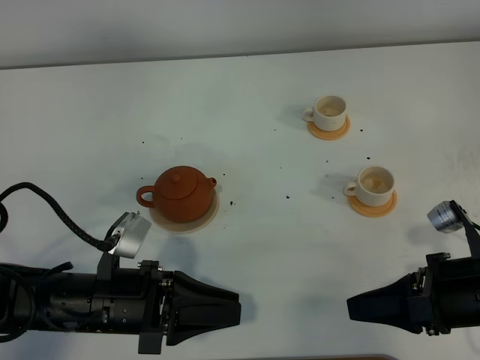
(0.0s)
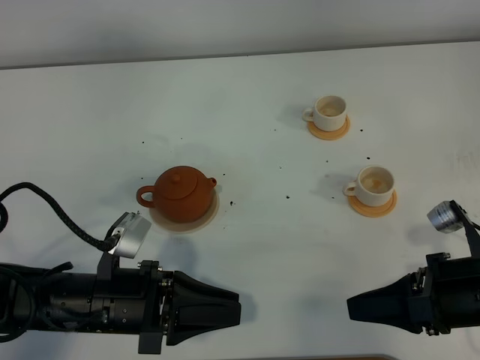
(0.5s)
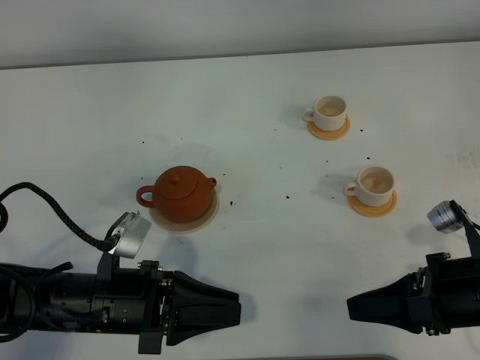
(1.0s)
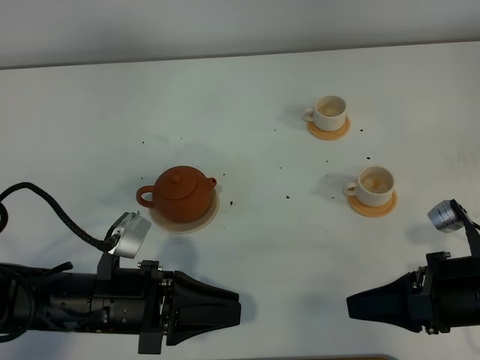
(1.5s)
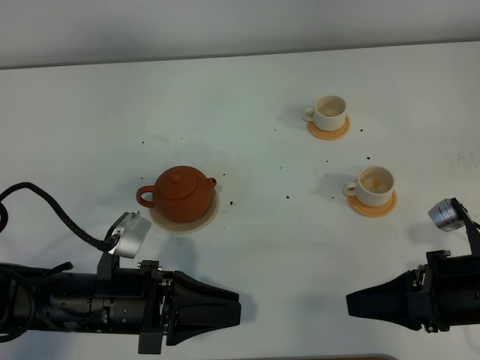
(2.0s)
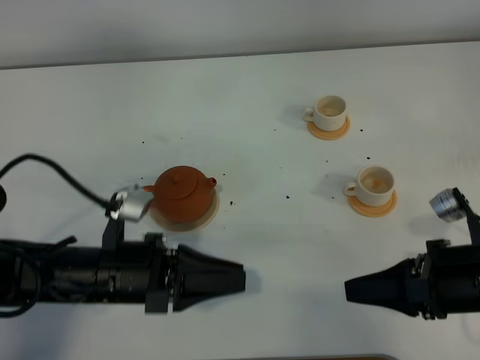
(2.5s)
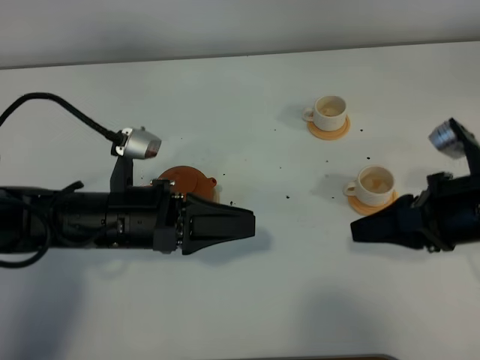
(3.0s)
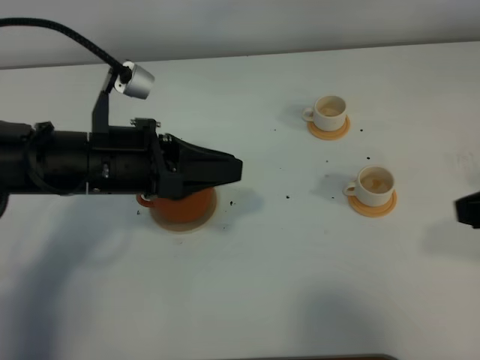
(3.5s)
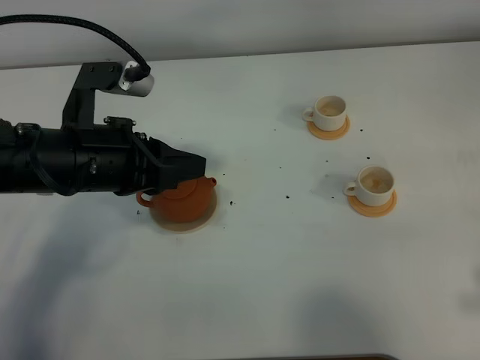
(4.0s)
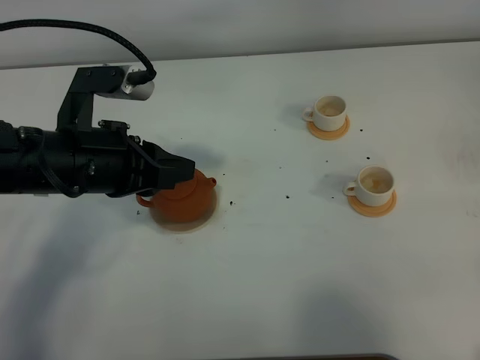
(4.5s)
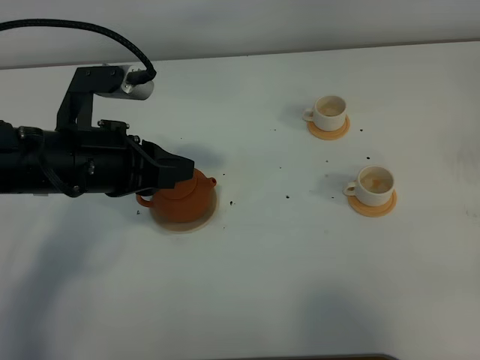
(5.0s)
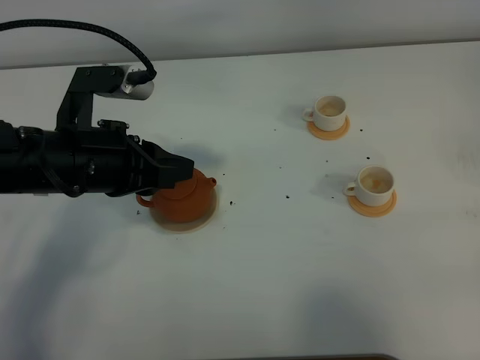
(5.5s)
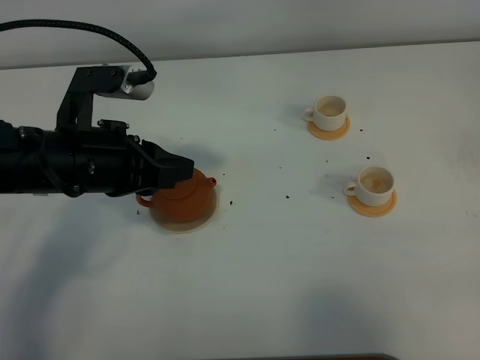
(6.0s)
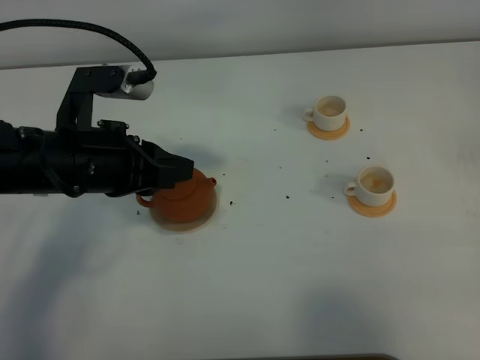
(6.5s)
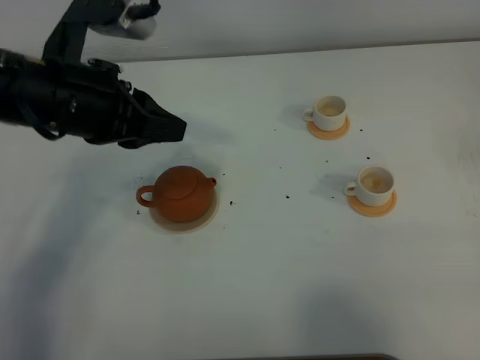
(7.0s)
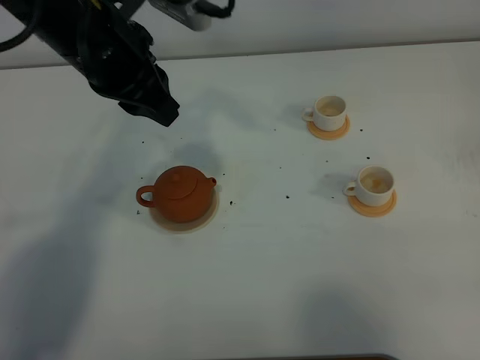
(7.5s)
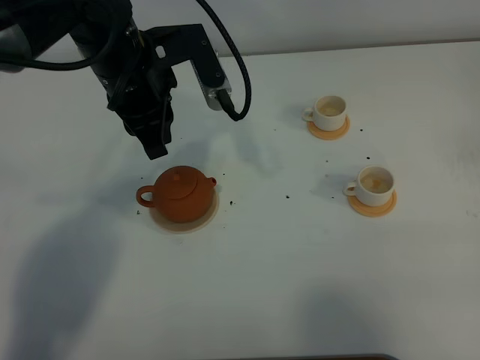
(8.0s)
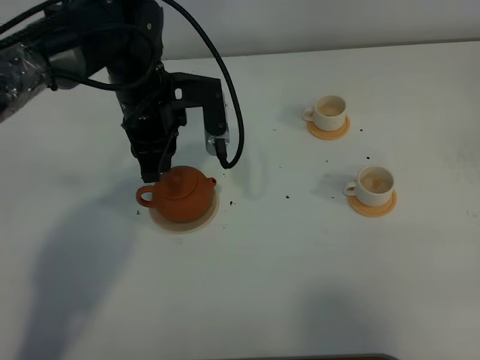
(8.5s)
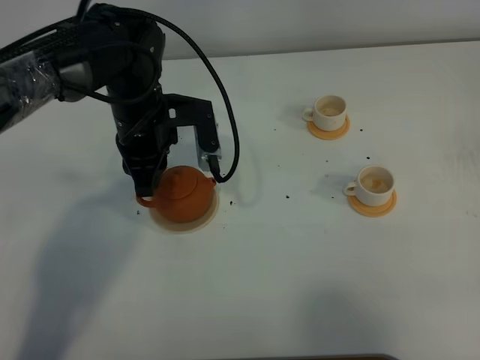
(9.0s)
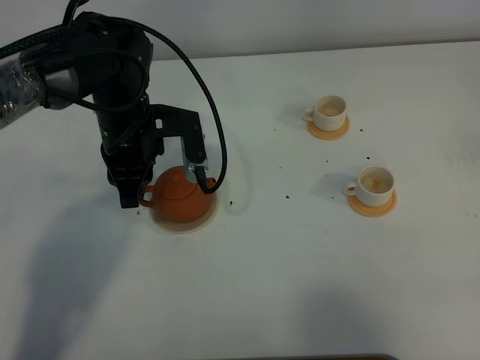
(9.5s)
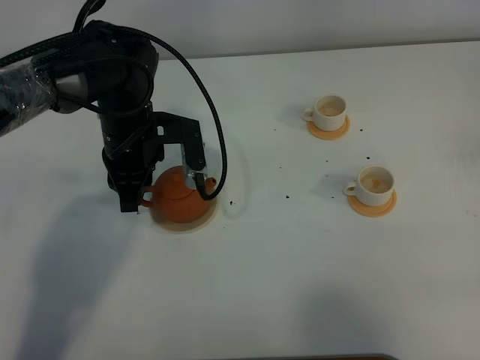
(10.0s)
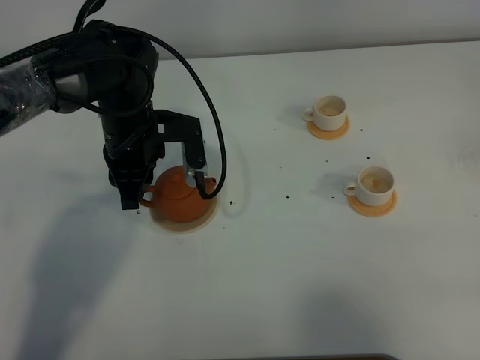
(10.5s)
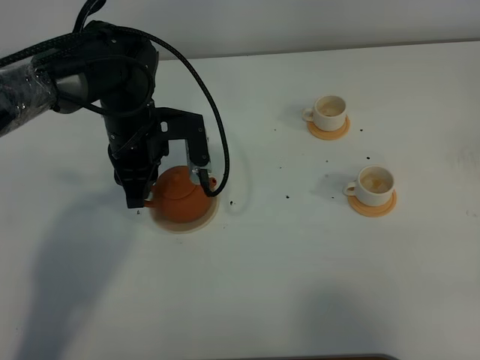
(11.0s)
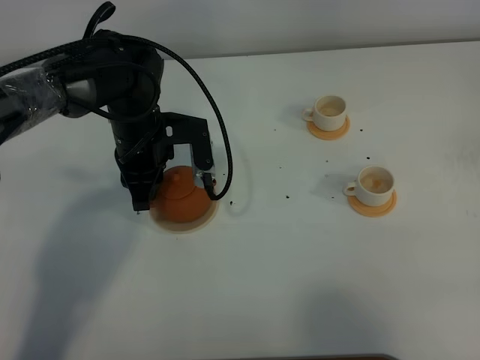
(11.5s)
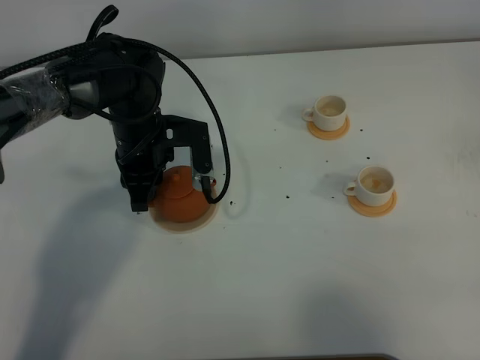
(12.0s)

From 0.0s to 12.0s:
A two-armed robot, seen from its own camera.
Task of the whole recording: grasp the brown teapot and pour the tea into the two white teacups one by one, put the brown teapot back in its original place.
From 0.0s to 2.0s: The two grippers keep their place.
From 2.0s to 4.0s: The left gripper goes approximately 15 cm upward and forward. Meanwhile the right gripper shifts approximately 20 cm upward, to the right and backward.
From 6.0s to 8.0s: The left gripper is displaced forward and to the right by some 10 cm.
From 8.0s to 10.0s: The left gripper goes about 10 cm downward.
From 10.0s to 12.0s: The grippers make only small movements.

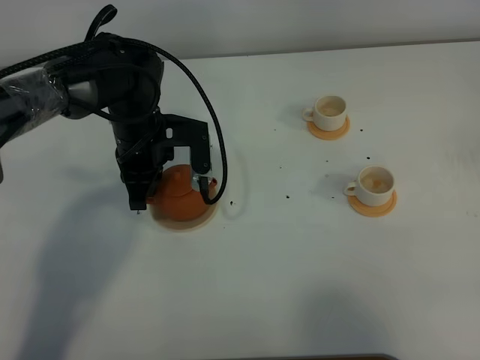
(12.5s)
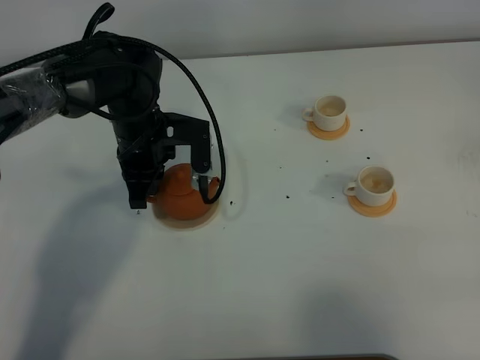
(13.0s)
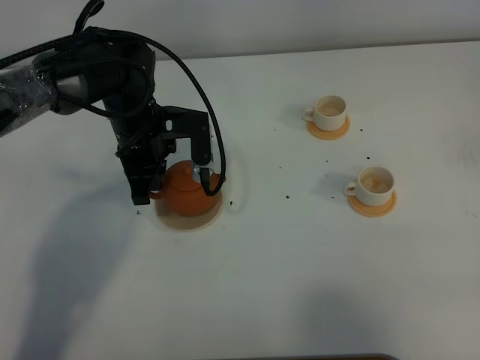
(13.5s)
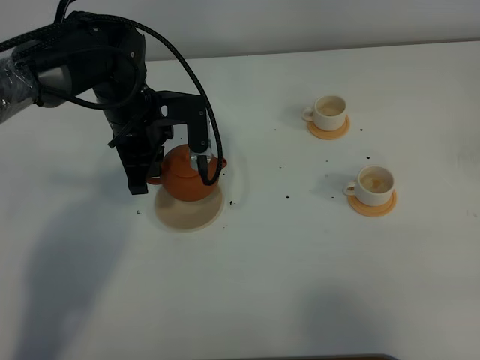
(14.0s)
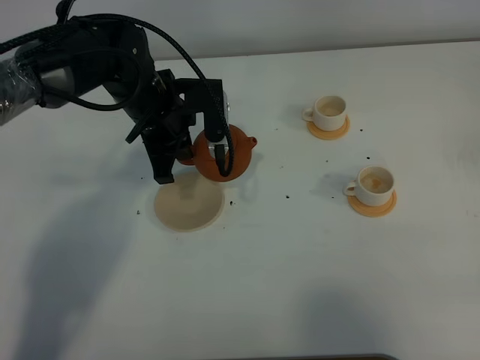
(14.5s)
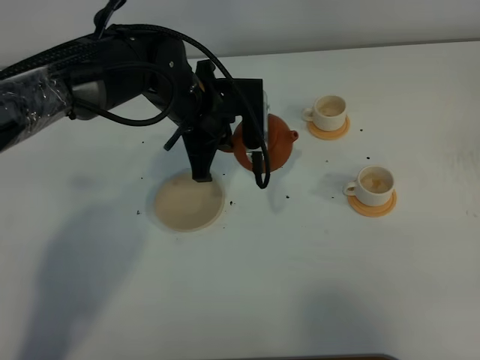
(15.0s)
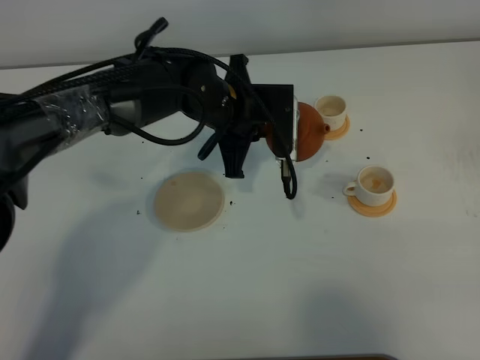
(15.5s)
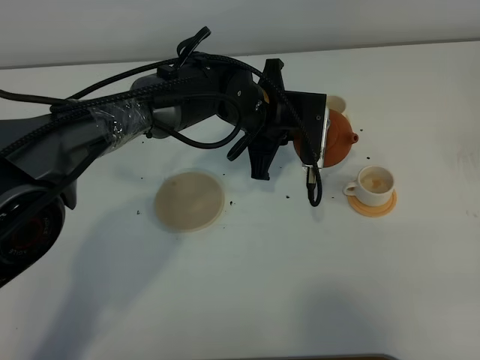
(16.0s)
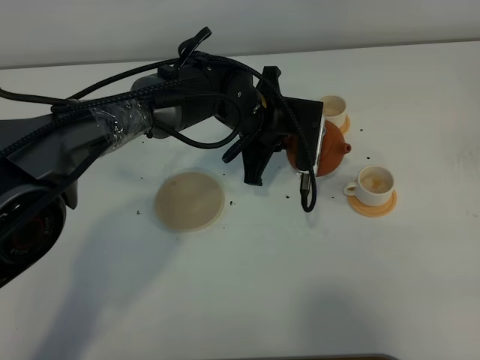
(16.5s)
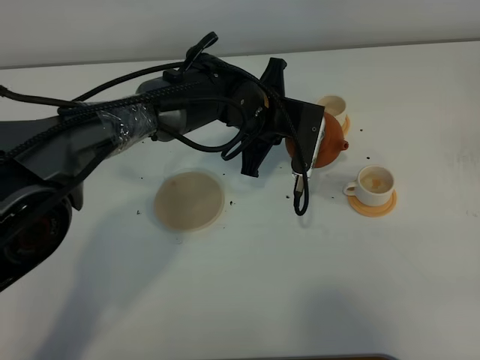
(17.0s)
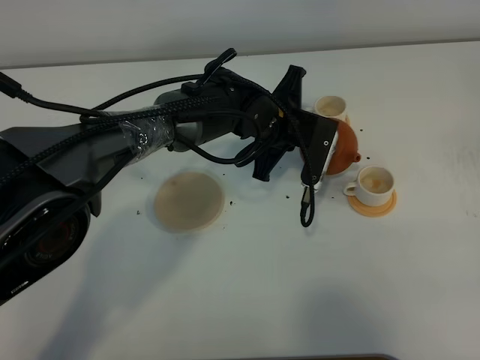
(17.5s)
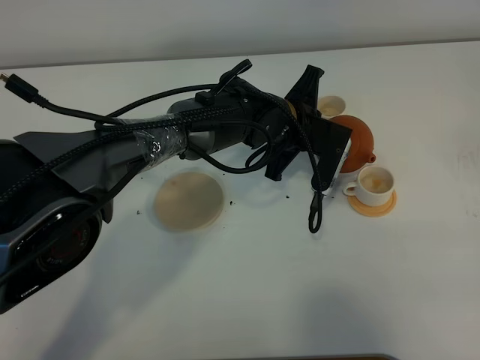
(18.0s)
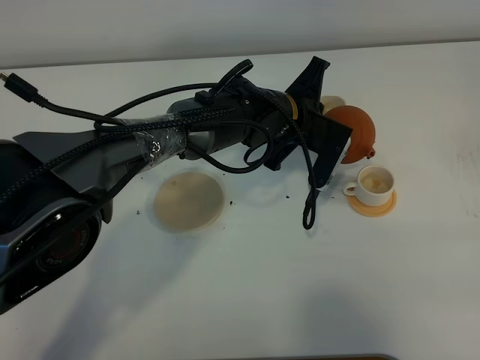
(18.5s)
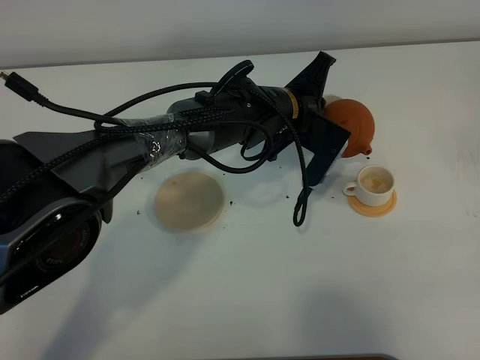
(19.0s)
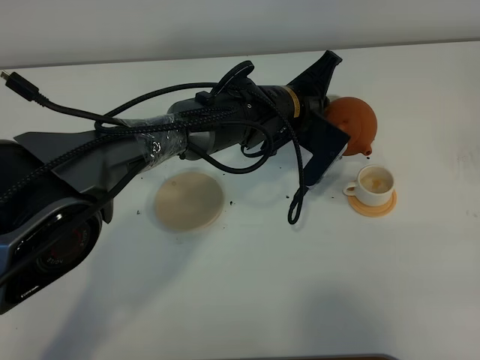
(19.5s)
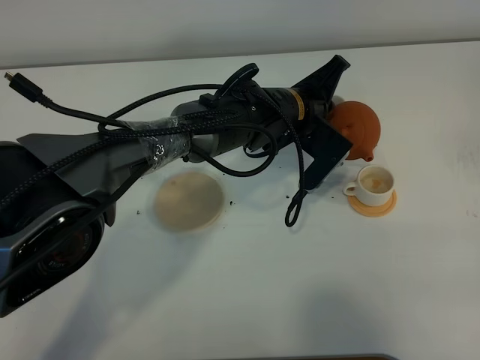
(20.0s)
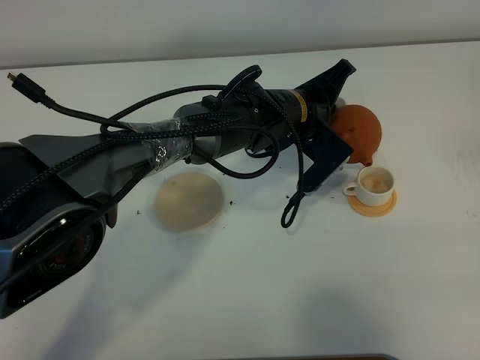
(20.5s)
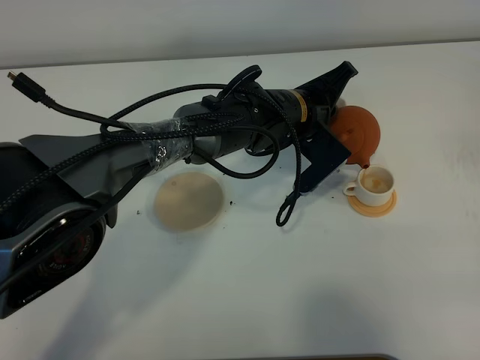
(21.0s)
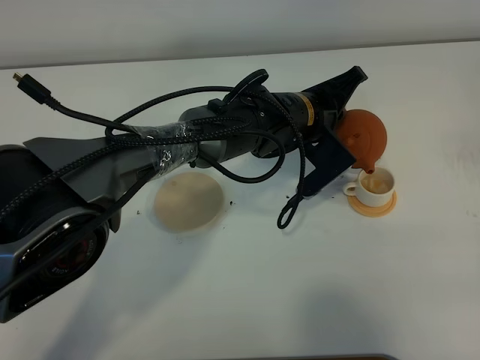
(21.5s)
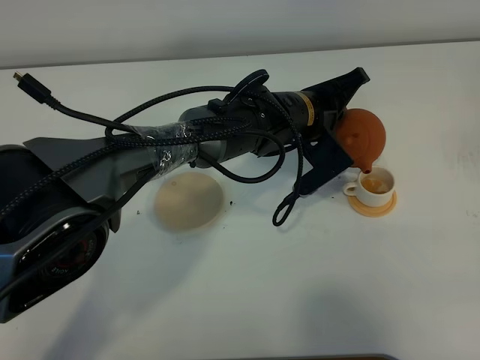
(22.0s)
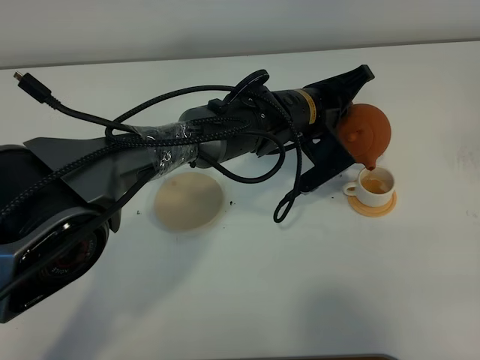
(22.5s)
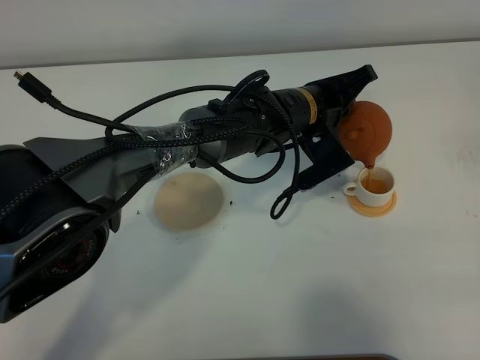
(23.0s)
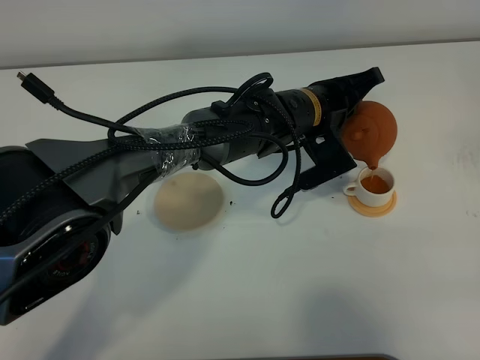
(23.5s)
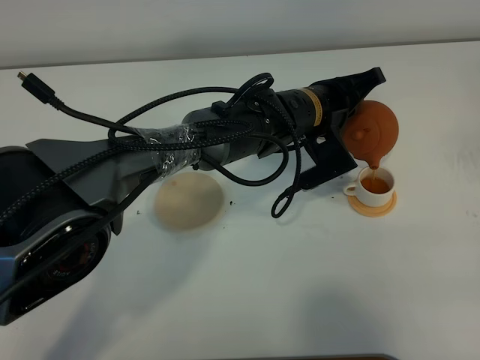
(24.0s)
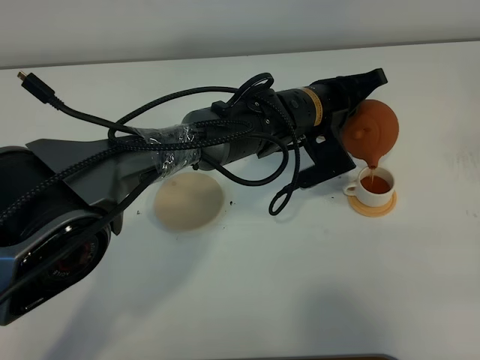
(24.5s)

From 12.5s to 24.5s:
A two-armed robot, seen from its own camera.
Task of the whole recording: grasp the brown teapot and pour the tea into the two white teacups one by one, put the brown teapot back in its original place.
From 14.5s to 16.5s: The left gripper goes roughly 10 cm to the right.
From 20.5s to 22.5s: There are only small adjustments of the grippers.
From 22.5s to 24.5s: There are only small adjustments of the grippers.

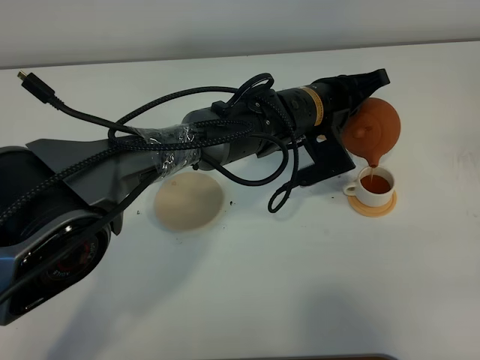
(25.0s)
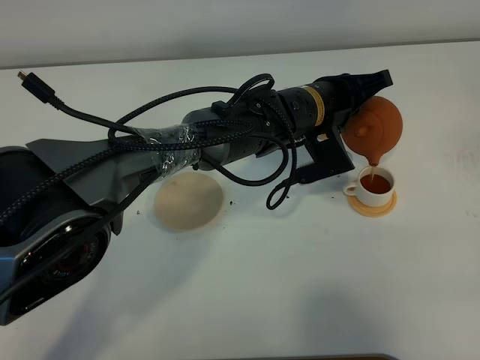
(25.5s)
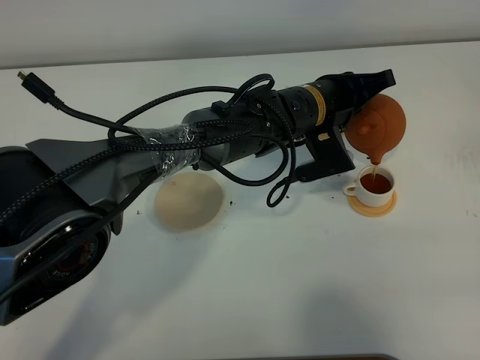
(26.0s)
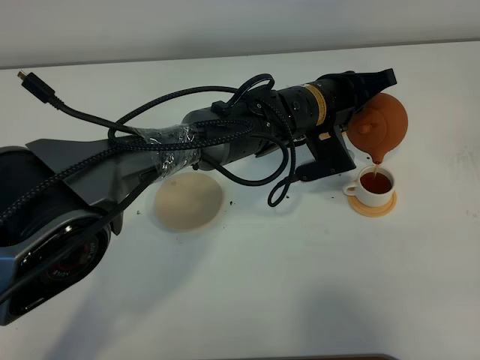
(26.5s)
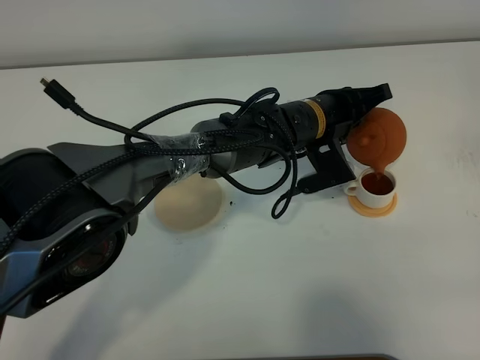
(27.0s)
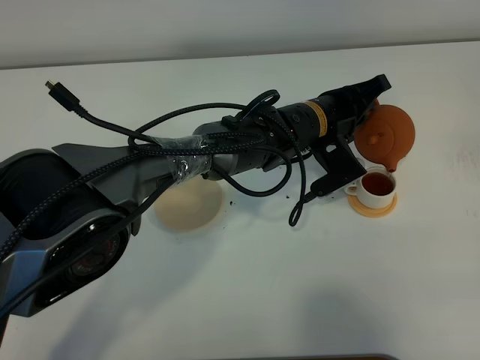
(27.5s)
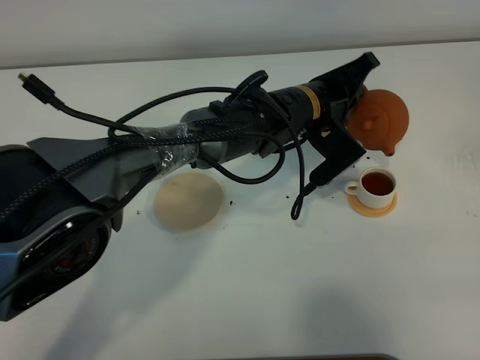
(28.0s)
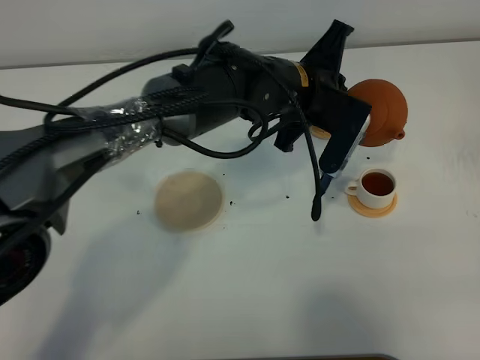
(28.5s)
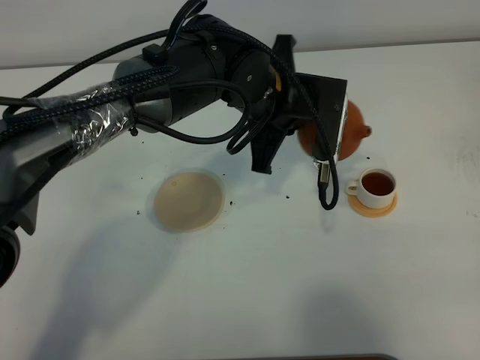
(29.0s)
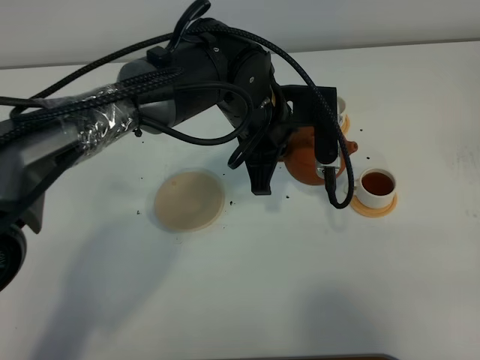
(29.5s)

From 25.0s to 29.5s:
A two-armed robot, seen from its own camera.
Task of the whole recording: grasp the brown teapot and pour the tea into the two white teacups one by one, put the brown teapot back in its original place.
Step, from 25.0s to 27.5s: Pour tea into the teacup with the left gripper.
From 25.0s to 27.0s: The grippers stay close to where they were, moving slightly.
From 27.0s to 29.5s: The left gripper shifts roughly 10 cm to the left and upward.
